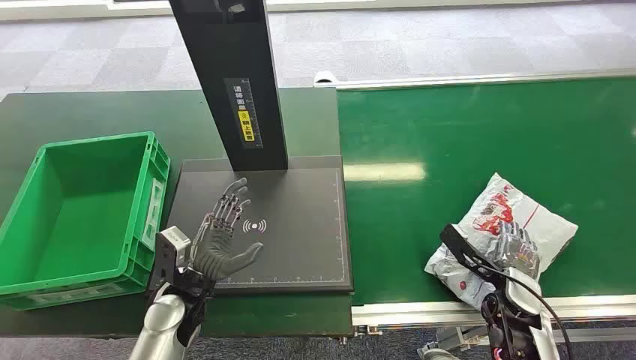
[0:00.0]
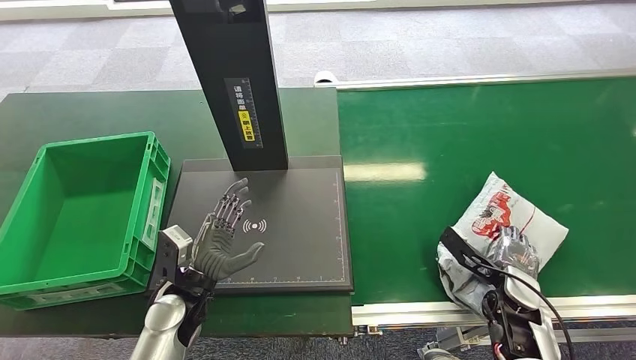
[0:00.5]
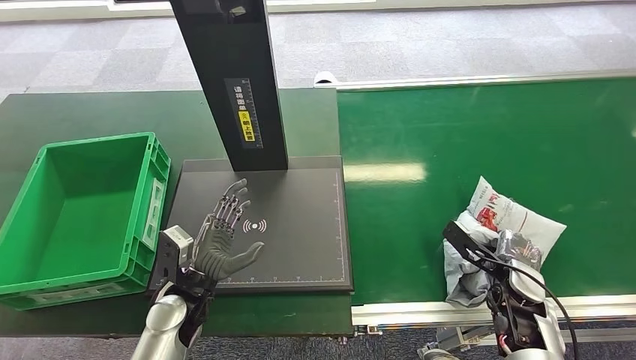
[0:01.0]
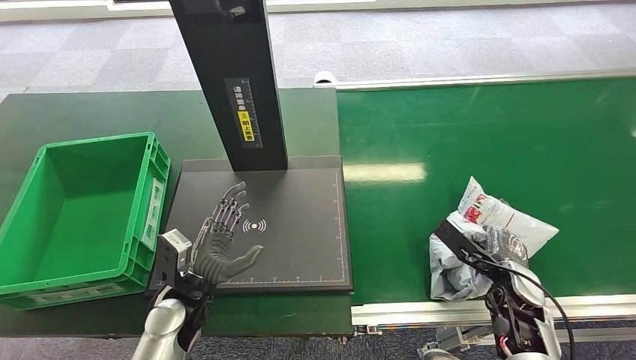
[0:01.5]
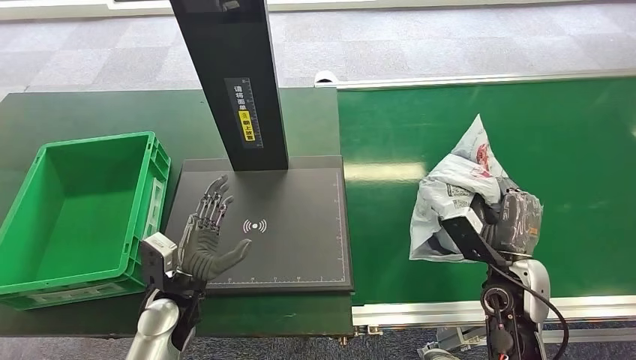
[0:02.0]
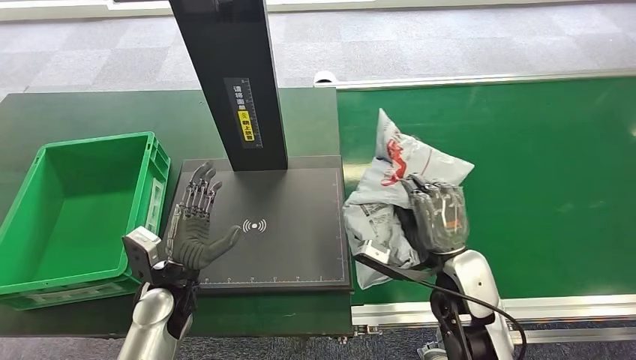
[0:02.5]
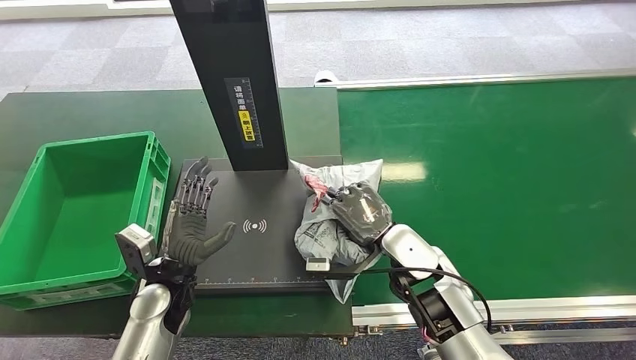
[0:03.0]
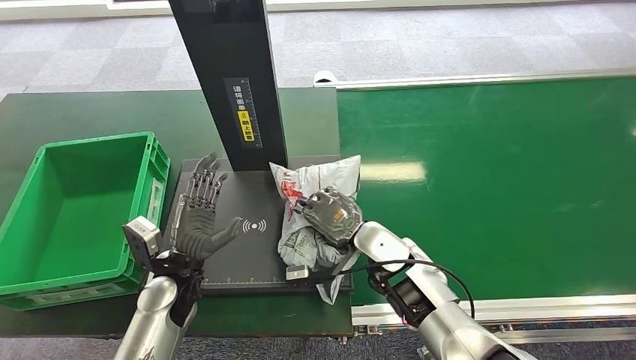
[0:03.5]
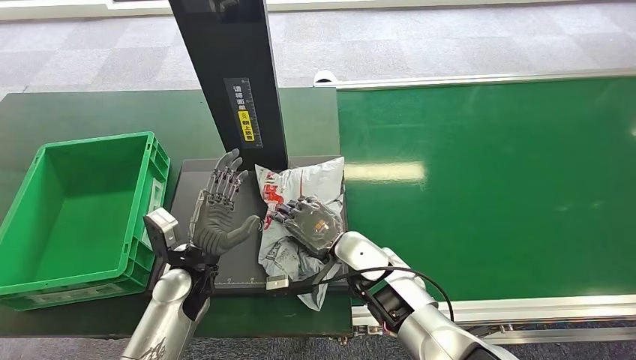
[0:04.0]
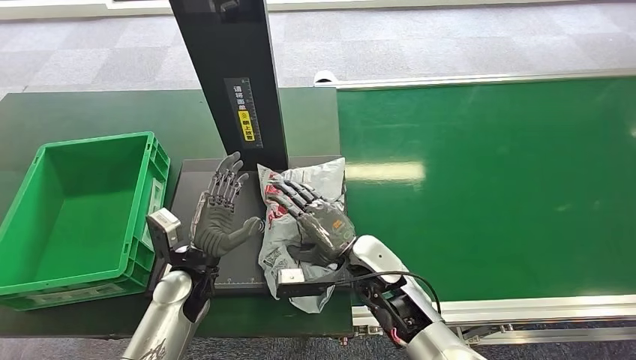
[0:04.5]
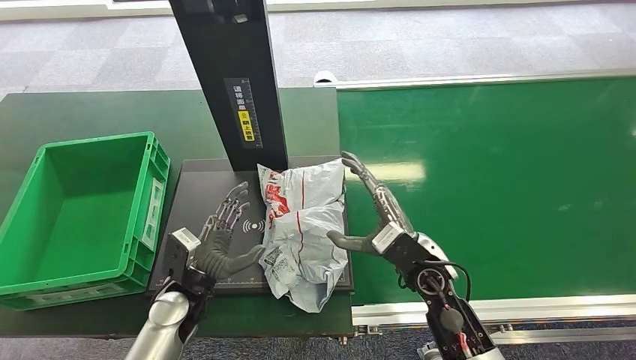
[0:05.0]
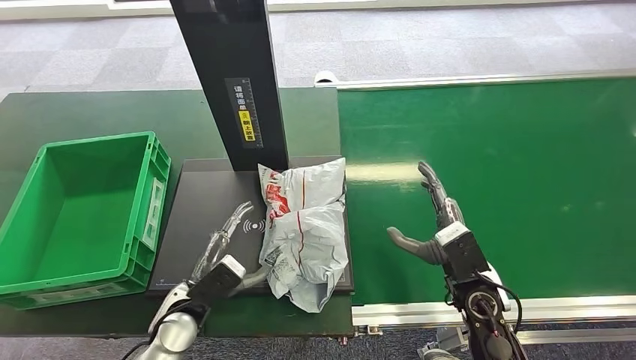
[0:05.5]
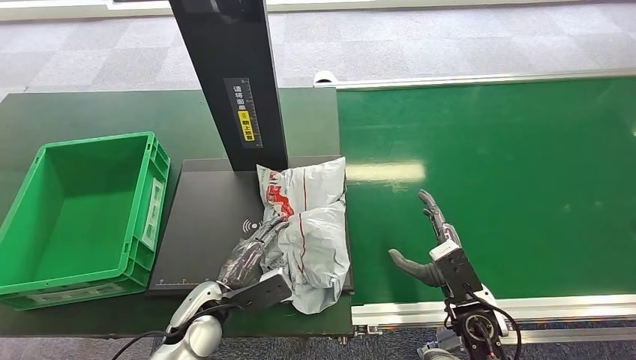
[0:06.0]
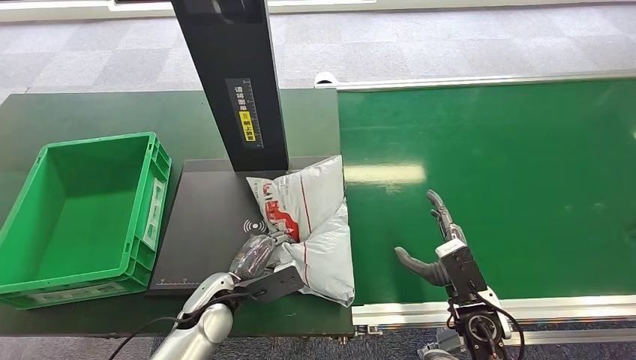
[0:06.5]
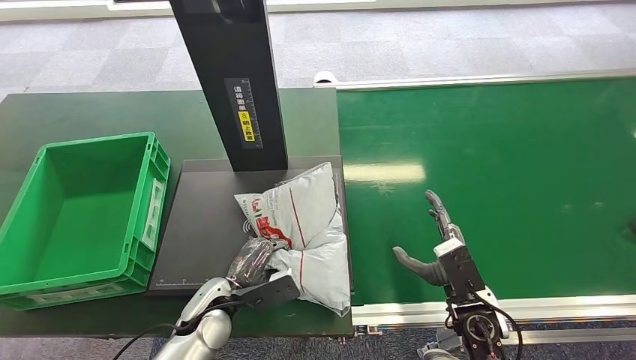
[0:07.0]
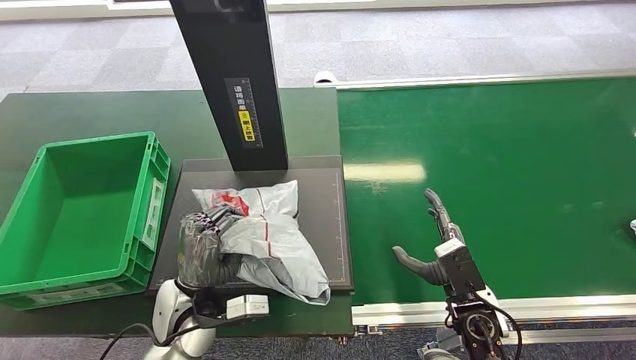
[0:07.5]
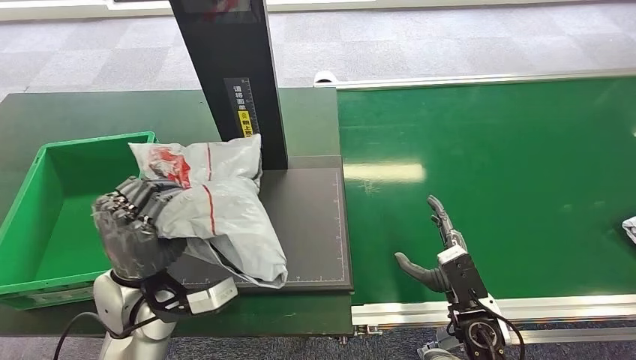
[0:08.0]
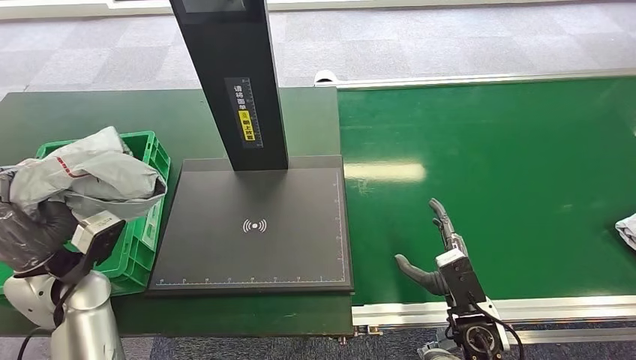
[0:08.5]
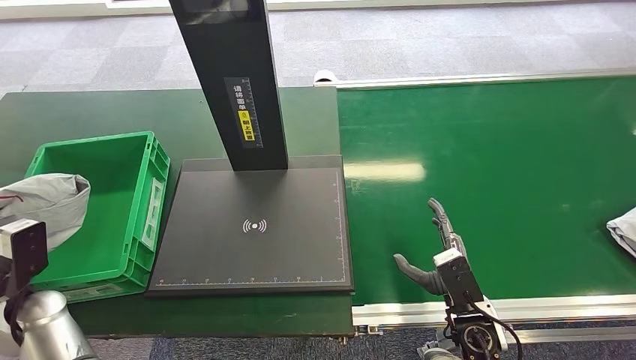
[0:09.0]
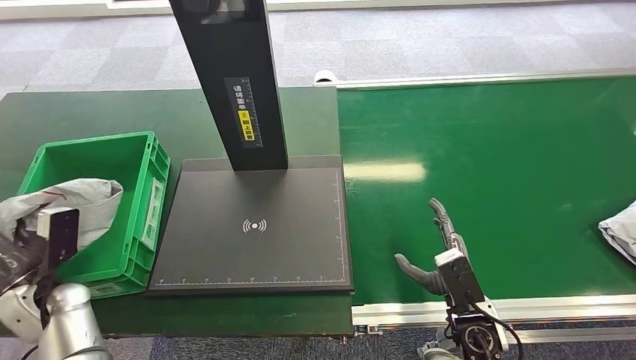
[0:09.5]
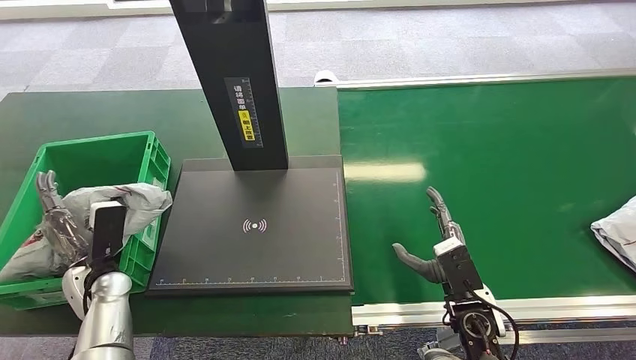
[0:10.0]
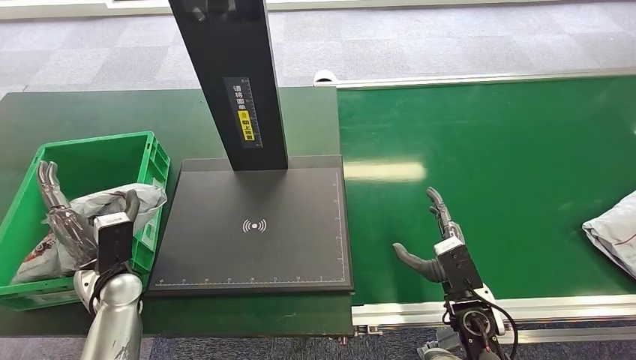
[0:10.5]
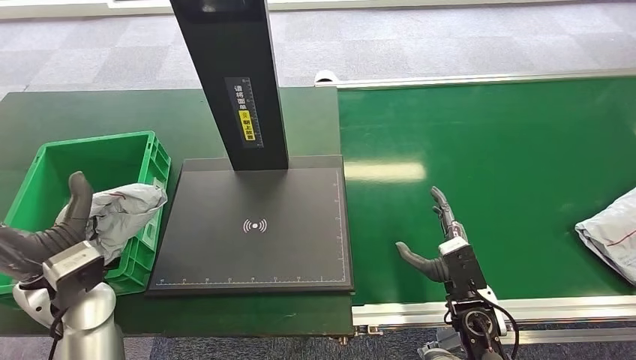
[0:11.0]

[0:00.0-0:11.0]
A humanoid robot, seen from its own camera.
Step, 0:00.0 to 0:02.0: Pick up the package from the conveyor belt.
Step, 0:02.5 to 0:06.0: Place the package onto the inbound machine.
Step, 0:06.5 to 0:07.5: Pick up the package from the inbound machine.
Step, 0:08.0 to 0:11.0: Place the package into the parcel locker.
0:02.0 to 0:03.5: The right hand is displaced to the left by about 15 cm.
0:03.5 to 0:05.5: The left hand ends up roughly 5 cm from where it was, while the right hand heads to the right and backward, covering about 15 cm.
0:05.5 to 0:07.5: The left hand goes roughly 5 cm upward. The right hand moves approximately 5 cm.
0:07.5 to 0:09.0: The left hand moves to the left, roughly 25 cm.
0:09.0 to 0:11.0: The left hand is displaced to the right and upward by approximately 15 cm.
